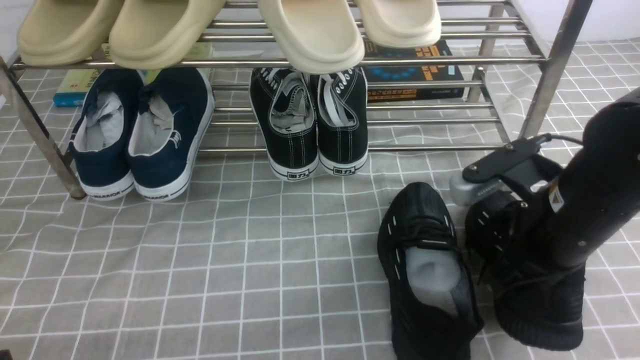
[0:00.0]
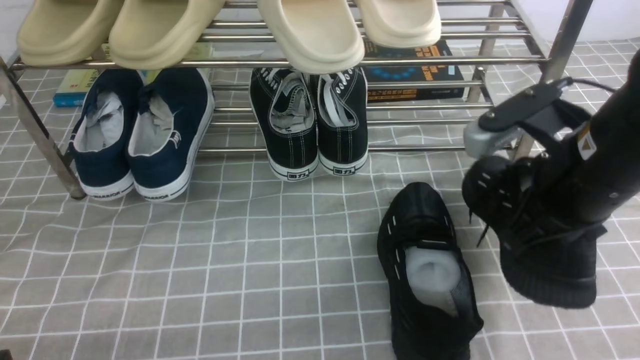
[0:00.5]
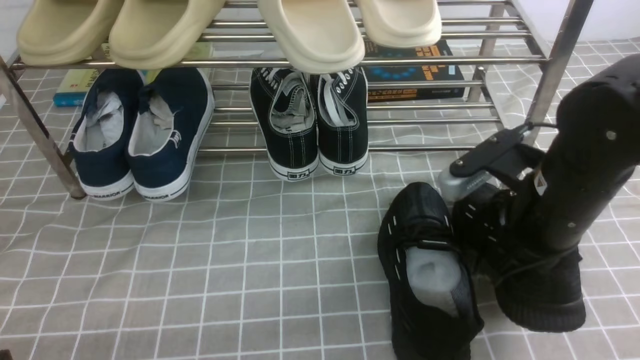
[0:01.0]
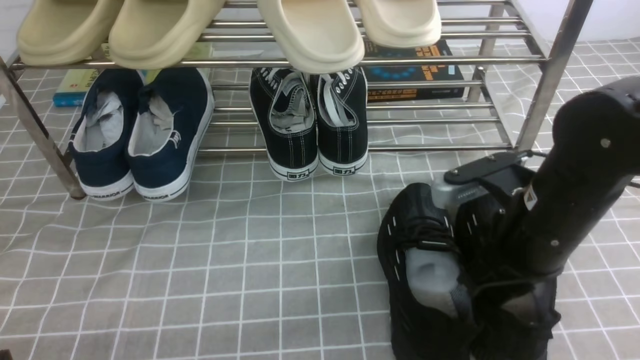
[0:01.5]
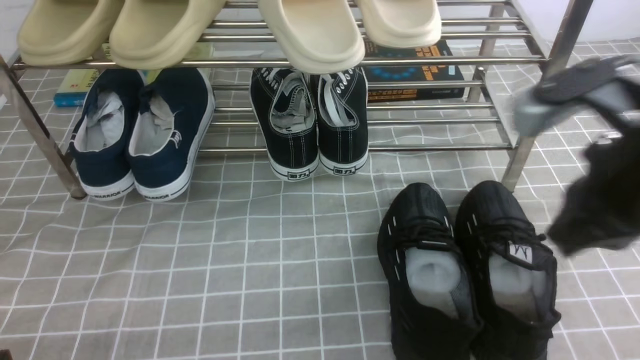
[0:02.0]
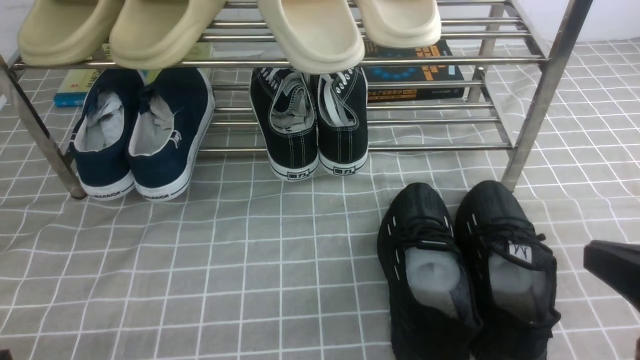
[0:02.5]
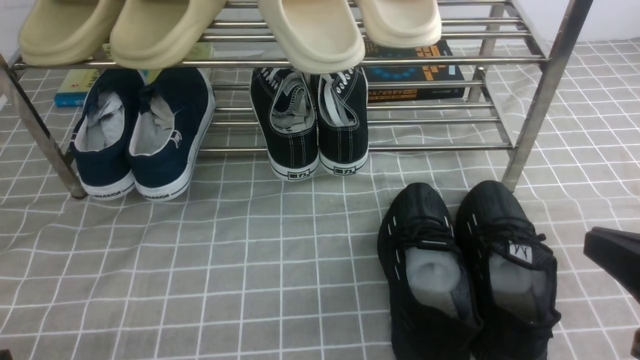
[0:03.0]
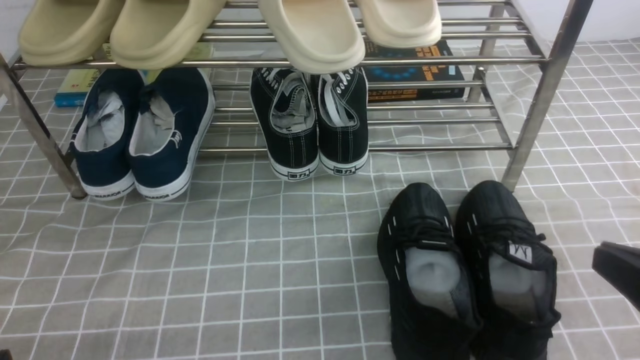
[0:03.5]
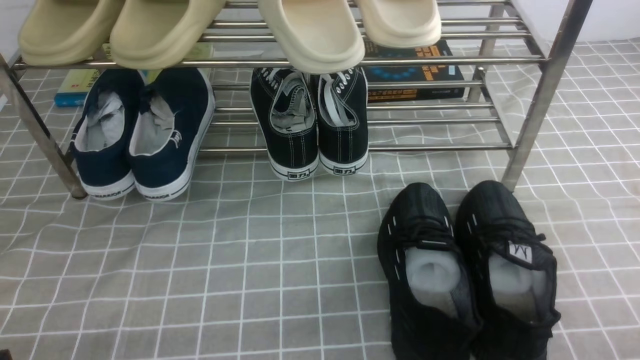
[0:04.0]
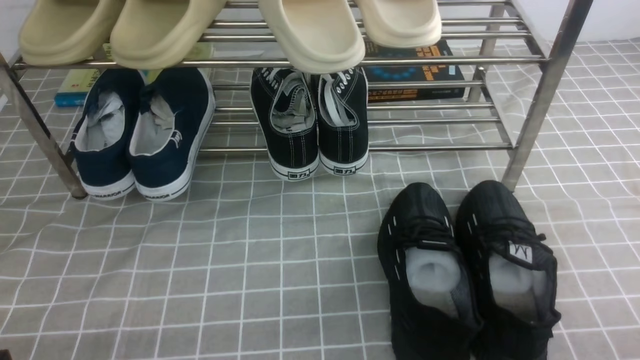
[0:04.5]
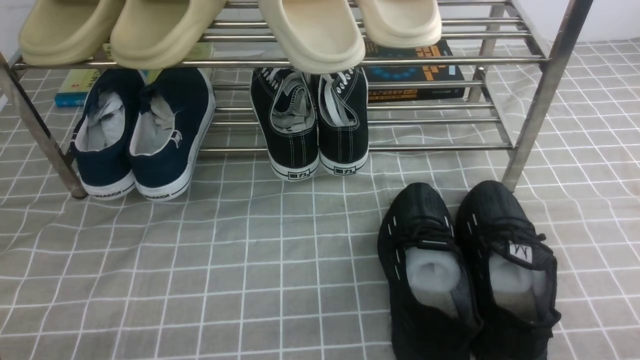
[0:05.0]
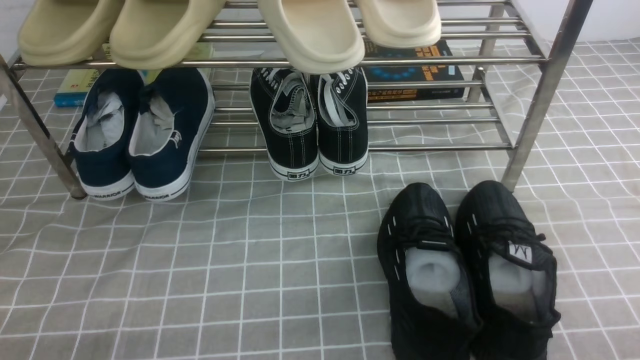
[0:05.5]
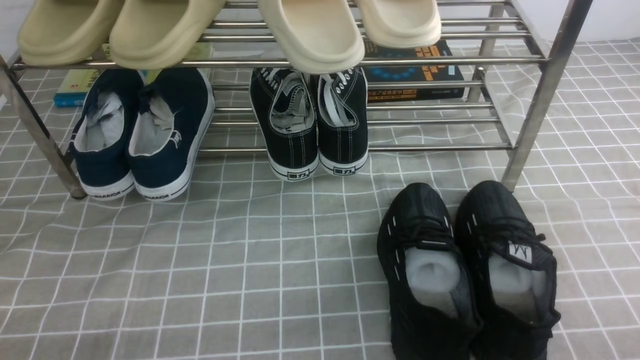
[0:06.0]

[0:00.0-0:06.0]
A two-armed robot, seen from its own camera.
Step, 0:00.0 to 0:01.5: use the right arm to take out the clamped shoe from the shoe rack and put it down.
0:00.0 to 0:02.0: The right gripper goes some 10 cm upward and backward.
0:02.0 to 0:04.0: The right gripper shifts about 25 cm downward, backward and to the right.

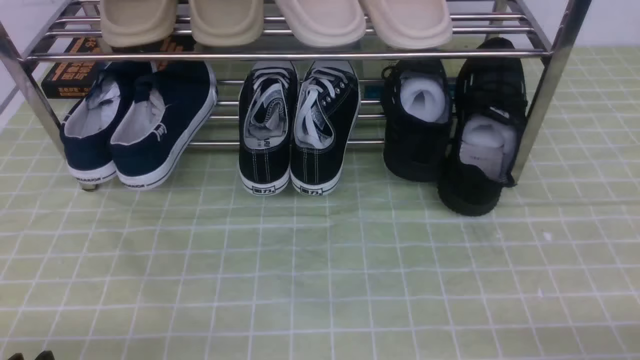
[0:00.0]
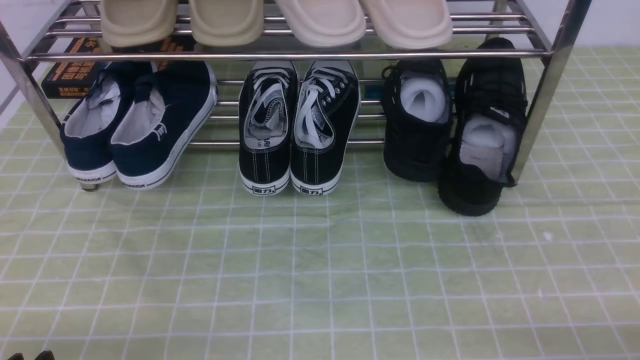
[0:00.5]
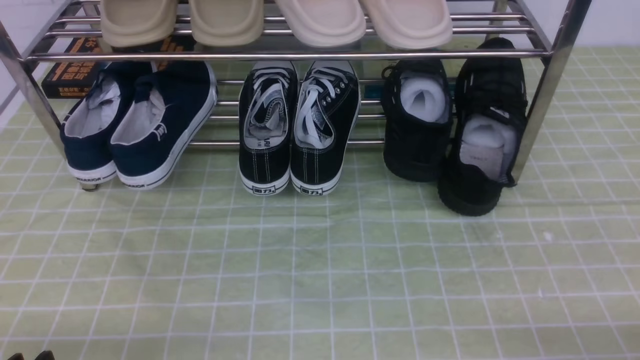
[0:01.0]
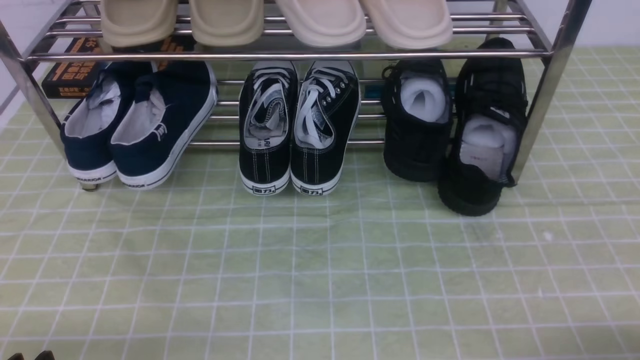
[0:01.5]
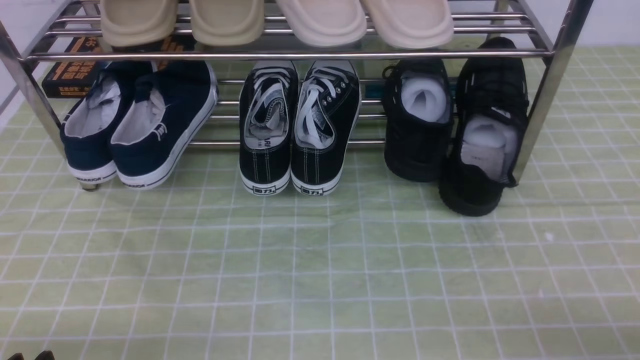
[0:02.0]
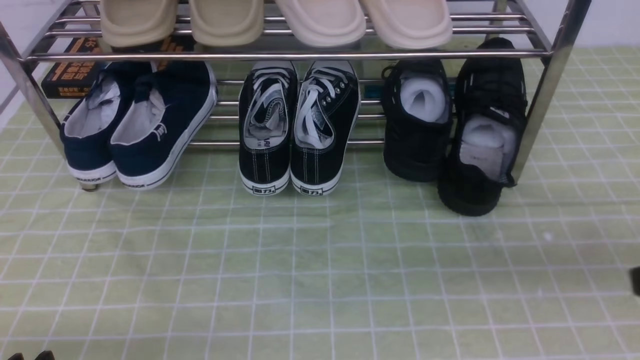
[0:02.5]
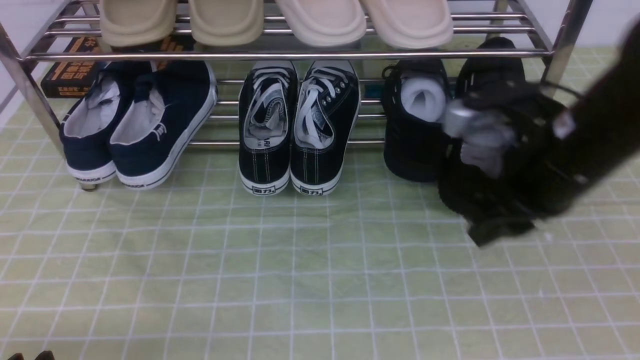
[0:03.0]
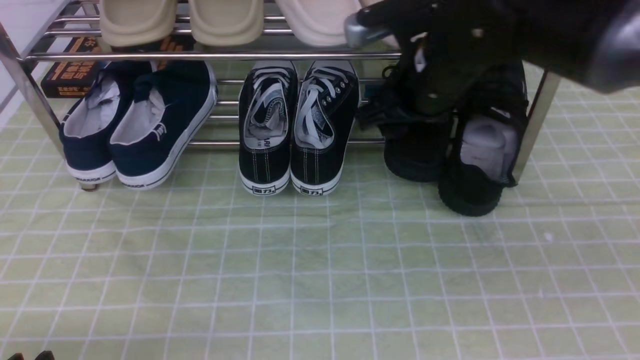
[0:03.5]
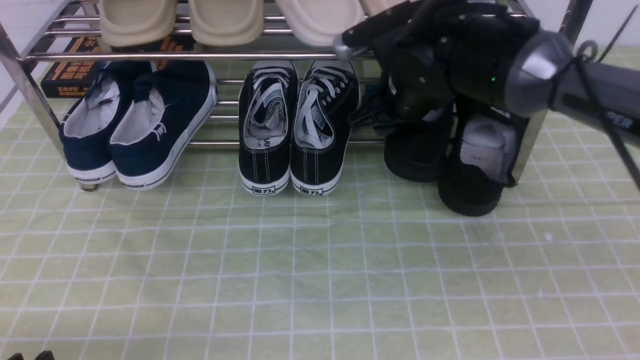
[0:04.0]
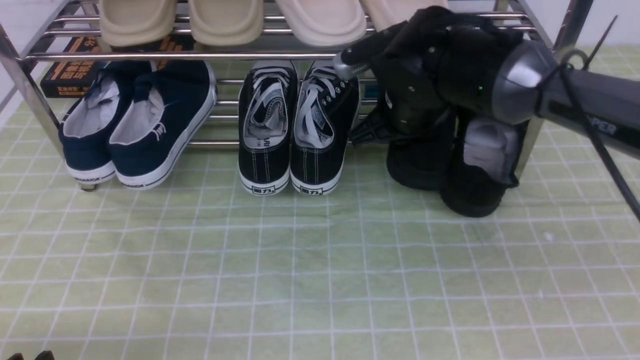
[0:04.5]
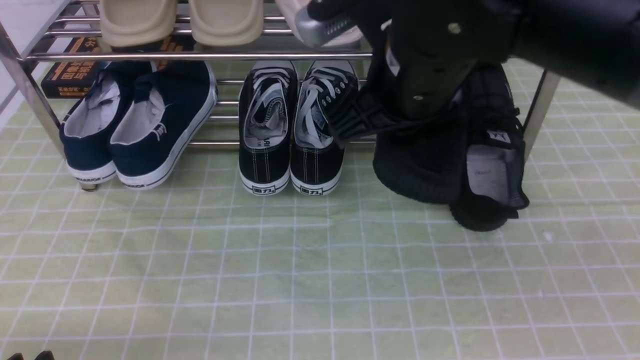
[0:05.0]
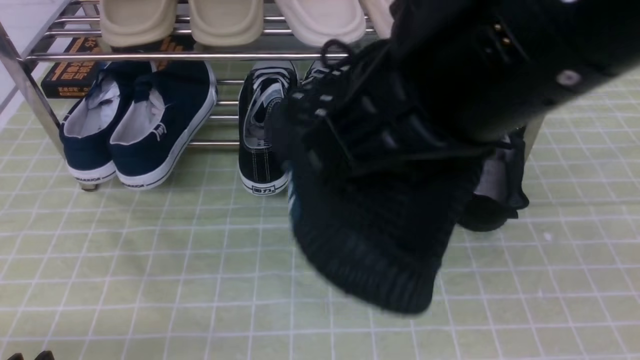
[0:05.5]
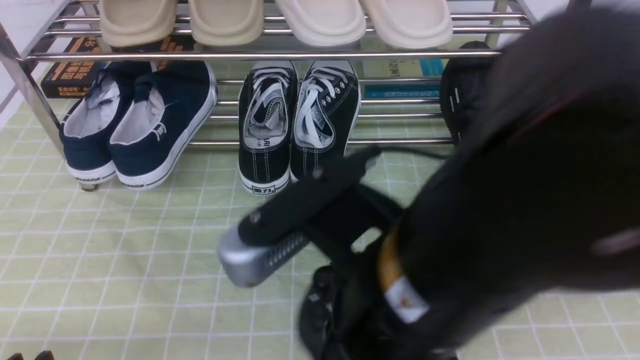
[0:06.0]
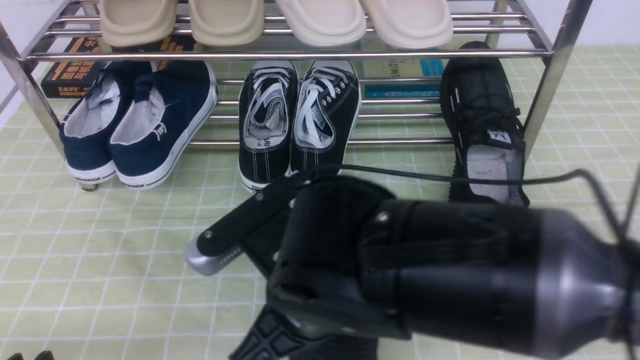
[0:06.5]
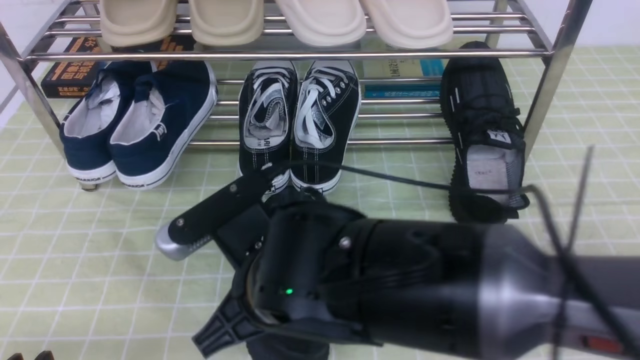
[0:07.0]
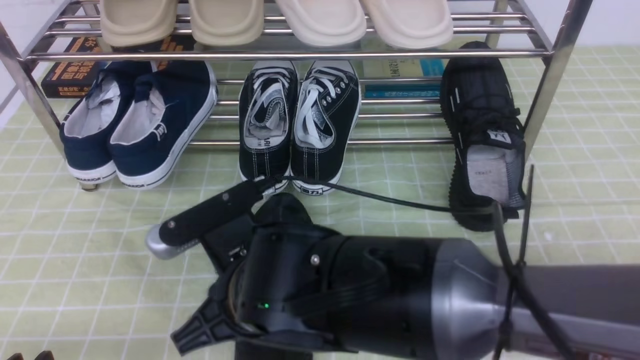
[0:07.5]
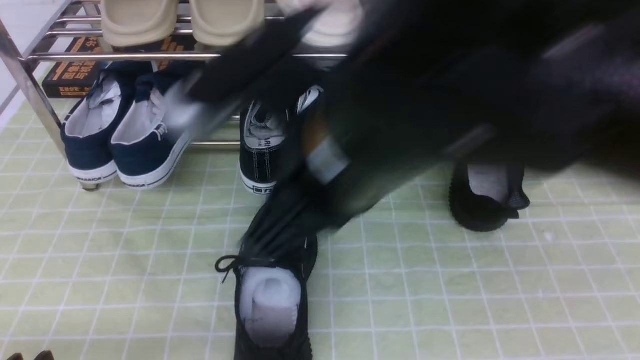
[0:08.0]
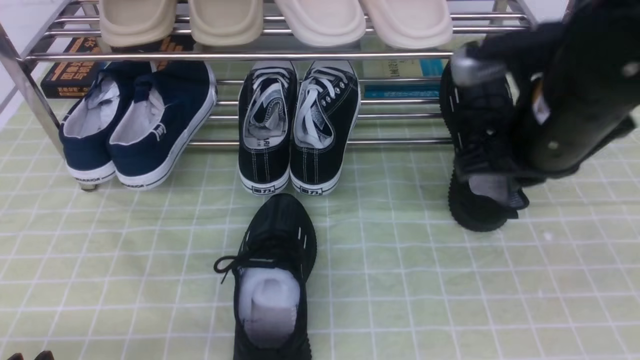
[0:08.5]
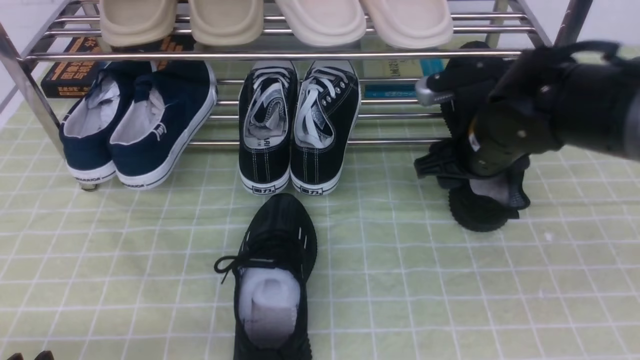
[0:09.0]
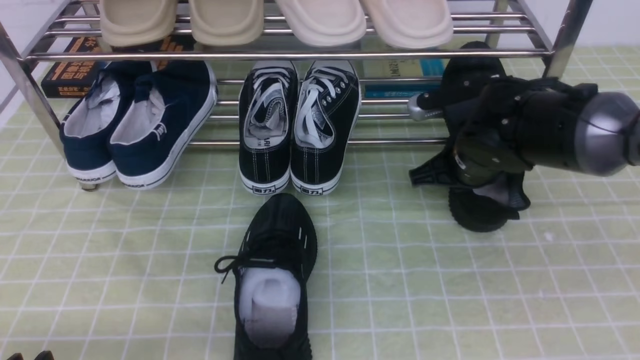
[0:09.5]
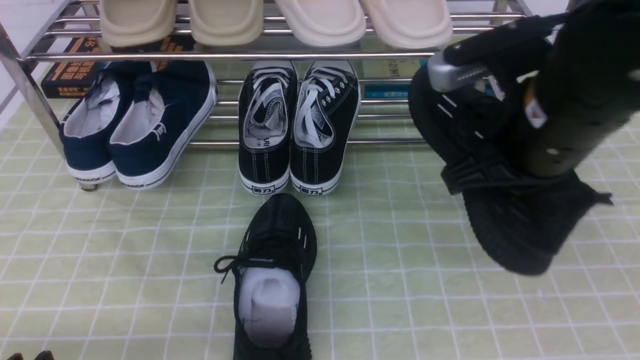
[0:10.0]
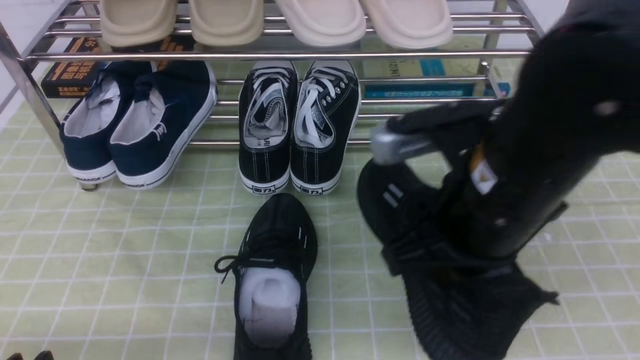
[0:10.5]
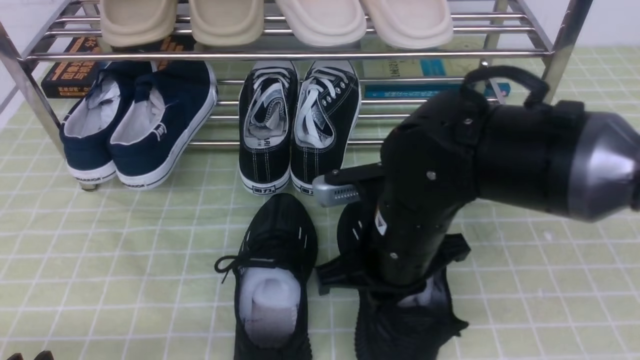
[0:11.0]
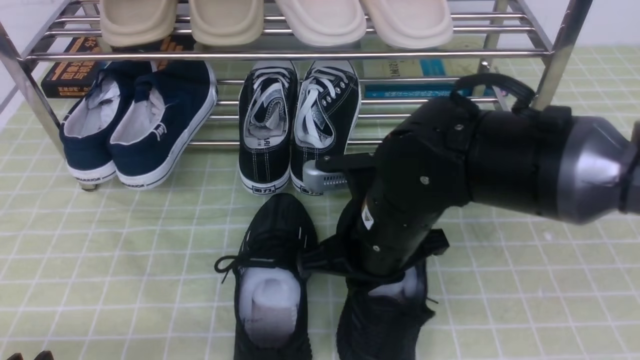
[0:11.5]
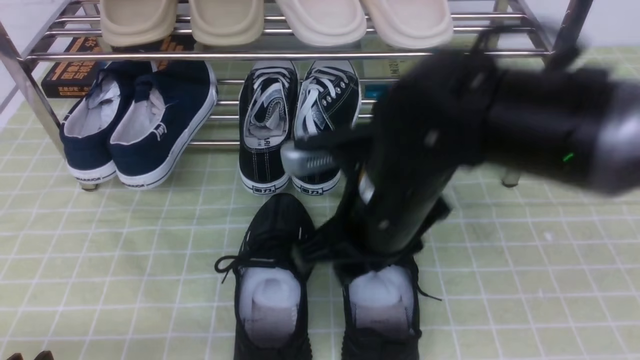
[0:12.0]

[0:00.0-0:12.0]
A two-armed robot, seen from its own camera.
Step, 0:00.0 to 0:04.0: use the right arm to clamp a shoe on the right side of the shoe rack.
Step, 0:04.5 to 0:07.5: use the right arm to take out the clamped shoe from the shoe rack and put it down.
Step, 0:08.0 to 0:09.5: use the right arm to clamp a shoe on the right side of the shoe rack.
Step, 0:10.0 to 0:11.5: use the right arm to take out the clamped shoe from the shoe rack and put it down.
0:02.0 to 0:04.0: The right gripper shifts about 40 cm forward and to the left, and opens up.
0:04.0 to 0:06.0: The right gripper moves backward, some 30 cm, and closes its fingers.
0:06.0 to 0:08.0: The right gripper is displaced forward by some 5 cm, goes downward and returns, approximately 15 cm each way, and opens its fingers.
0:08.0 to 0:10.0: The right gripper shifts approximately 15 cm to the right and forward, and closes up.
0:10.0 to 0:12.0: The right gripper heads to the left, covering about 10 cm, and opens.

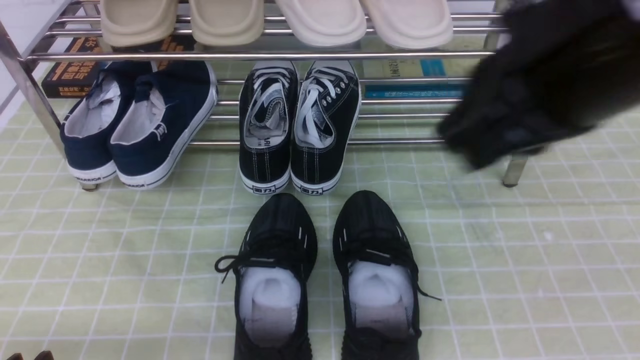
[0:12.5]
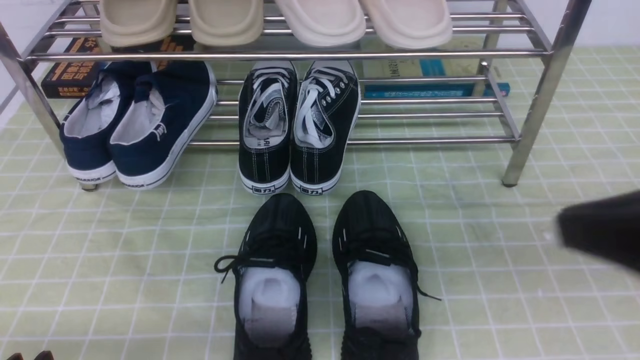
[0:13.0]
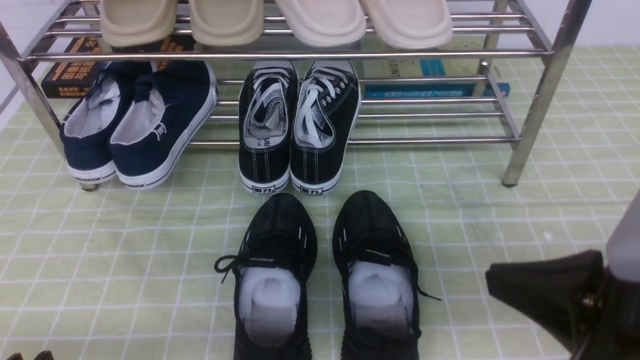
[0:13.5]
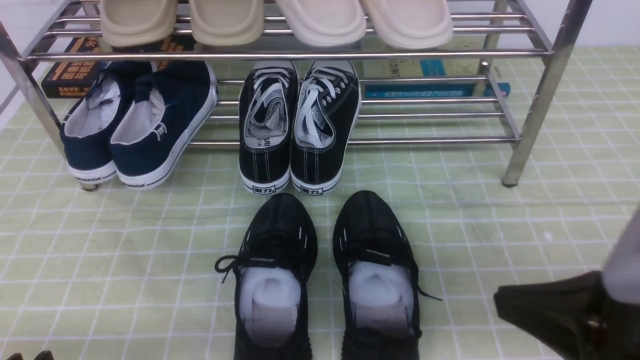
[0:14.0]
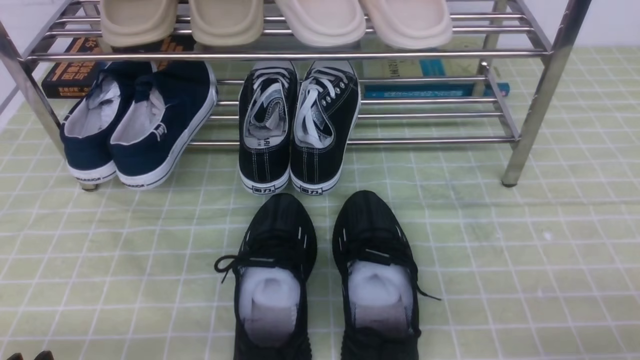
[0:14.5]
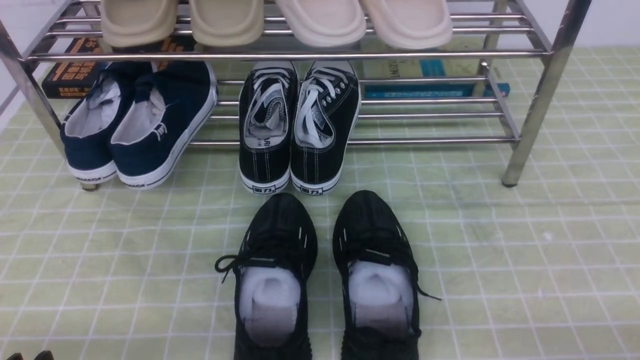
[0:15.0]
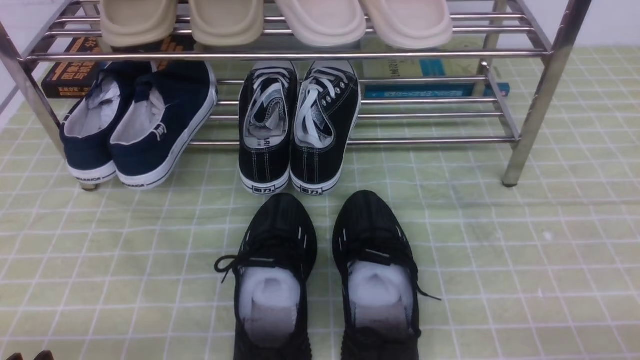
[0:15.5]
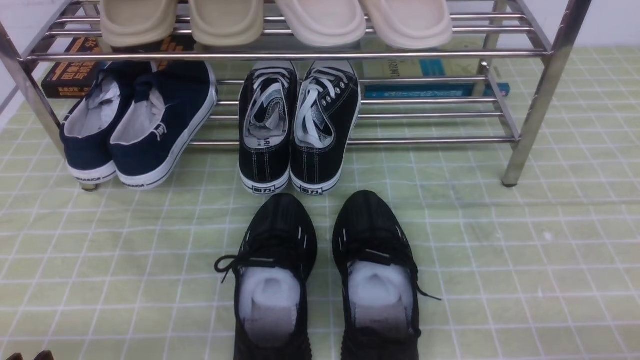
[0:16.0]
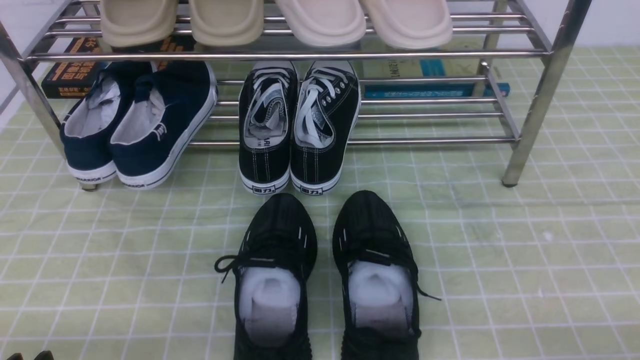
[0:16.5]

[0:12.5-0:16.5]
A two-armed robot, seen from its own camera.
0:12.5 to 0:14.5: The right gripper shifts some 30 cm downward, to the right and backward.
